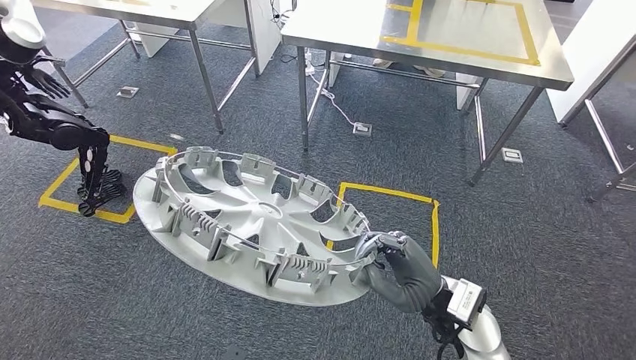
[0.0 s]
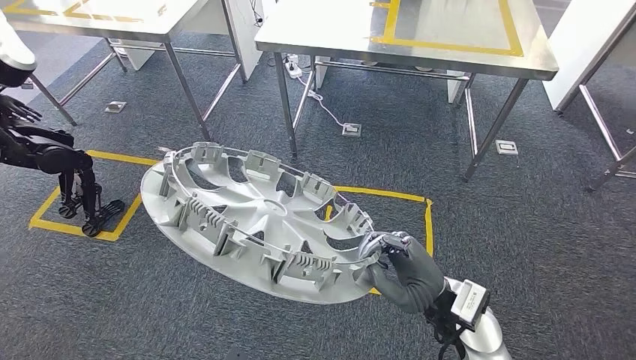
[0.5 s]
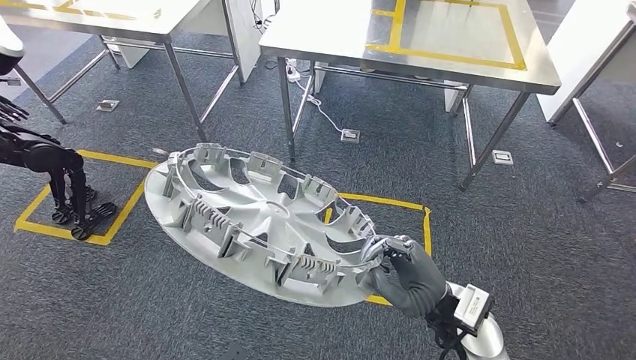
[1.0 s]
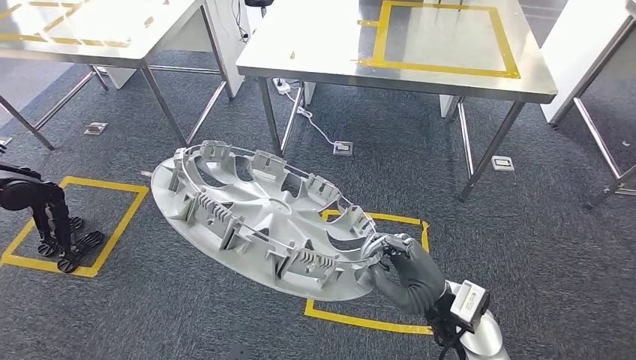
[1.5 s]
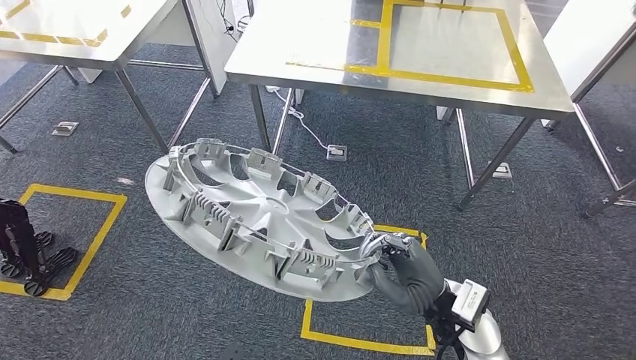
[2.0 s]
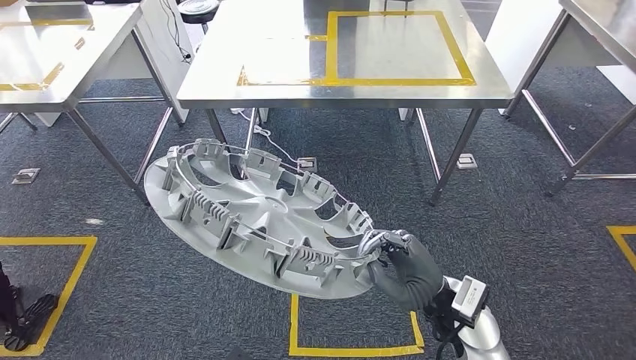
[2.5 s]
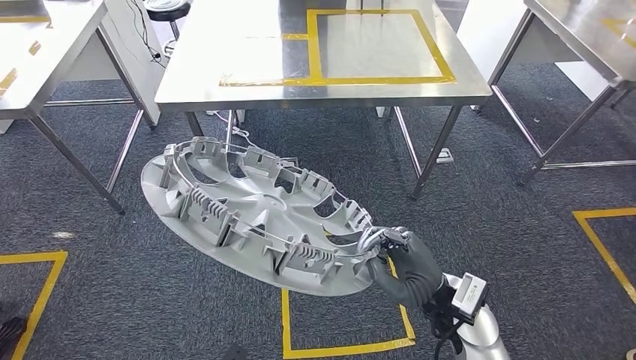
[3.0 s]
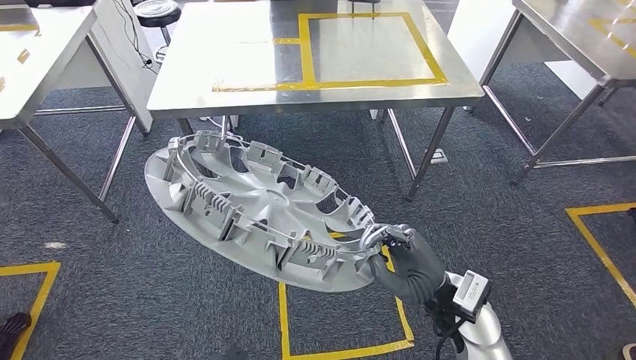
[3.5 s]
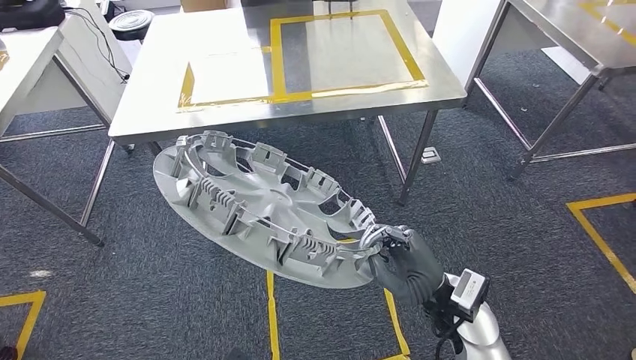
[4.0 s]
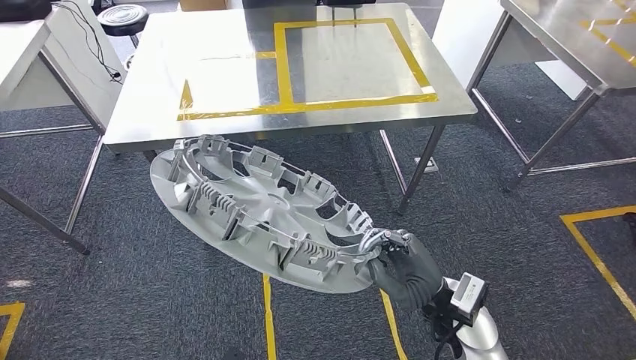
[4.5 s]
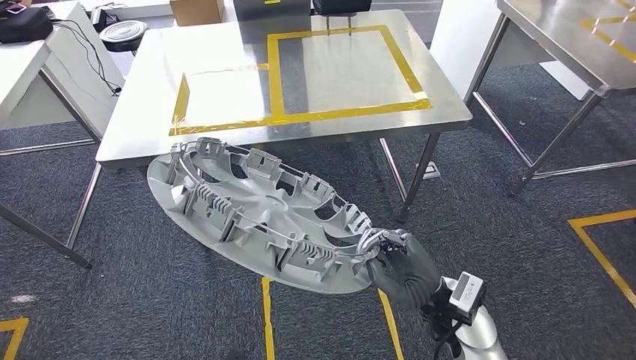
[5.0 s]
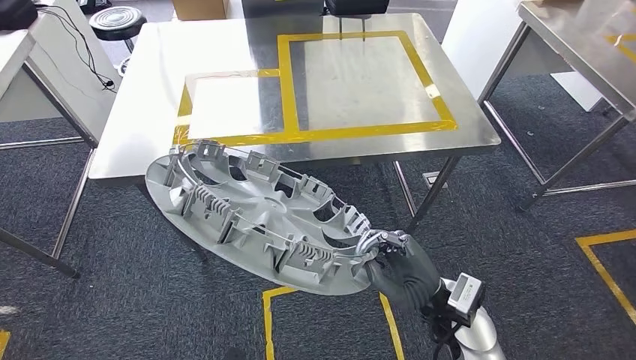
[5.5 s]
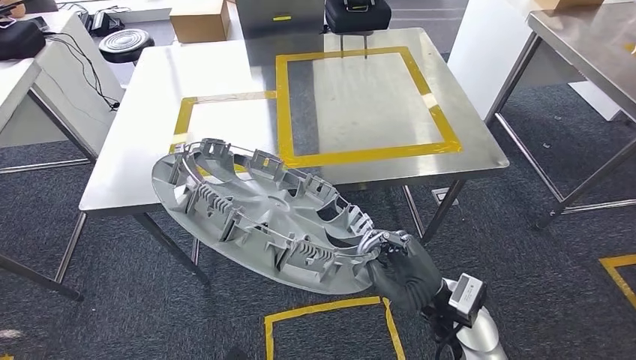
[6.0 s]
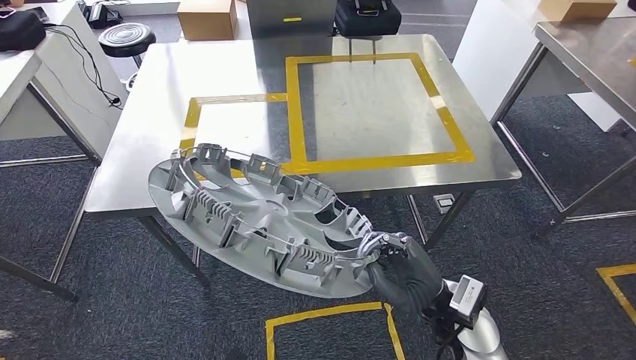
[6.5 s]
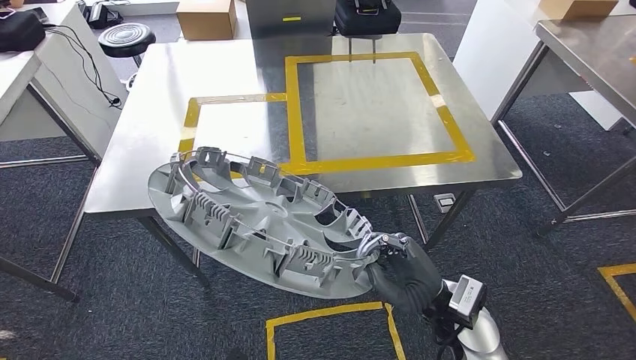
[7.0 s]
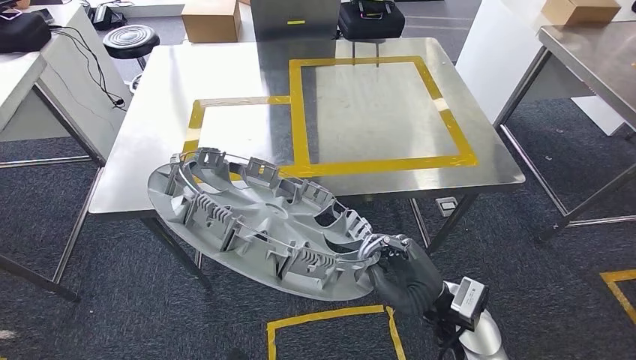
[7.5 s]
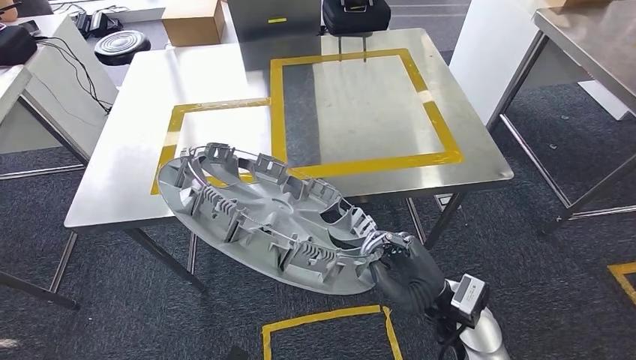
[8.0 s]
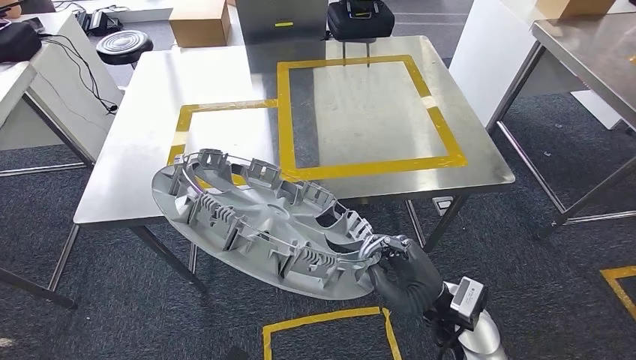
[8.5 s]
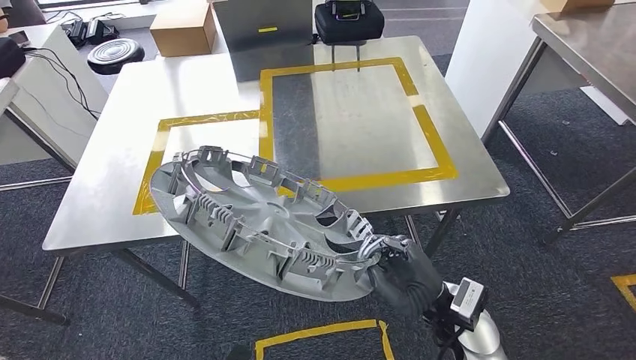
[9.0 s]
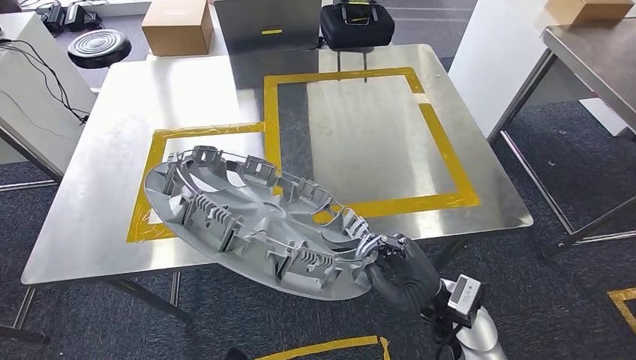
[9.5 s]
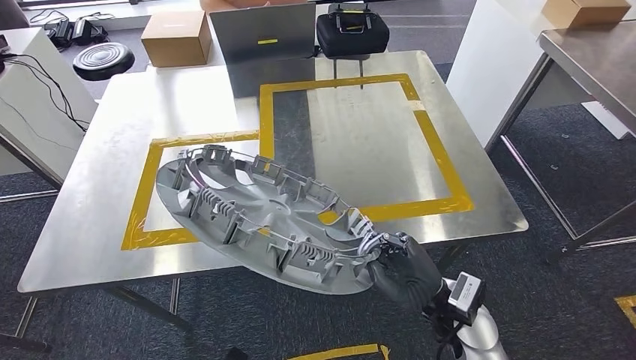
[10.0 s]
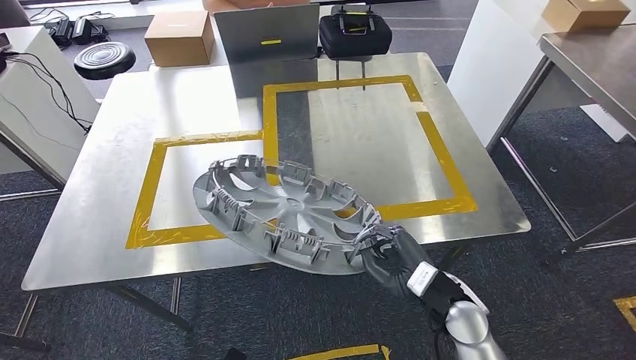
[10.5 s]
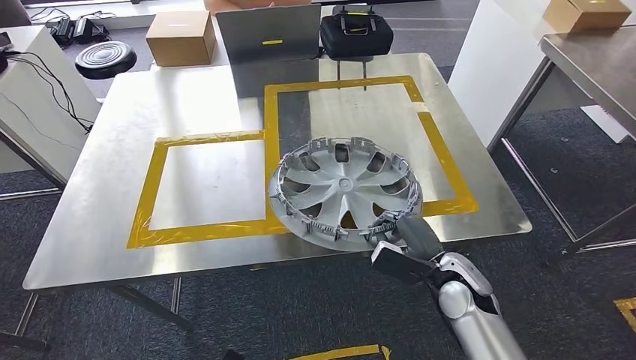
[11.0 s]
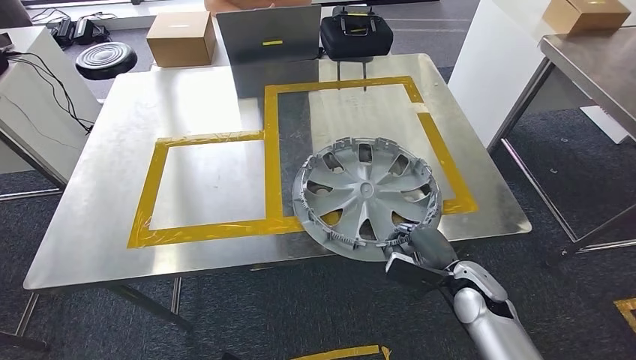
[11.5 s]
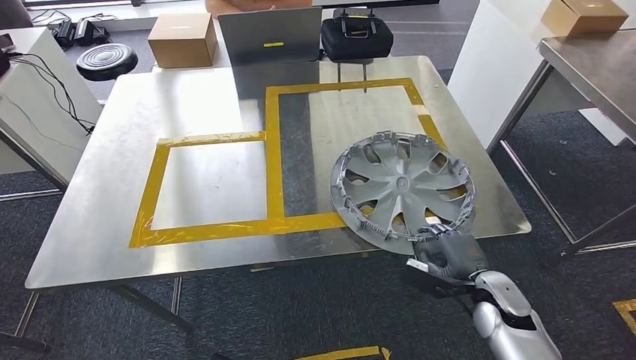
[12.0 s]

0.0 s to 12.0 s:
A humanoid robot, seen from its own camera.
Step, 0.0 to 9.5 s: Move the small parts to the workbench.

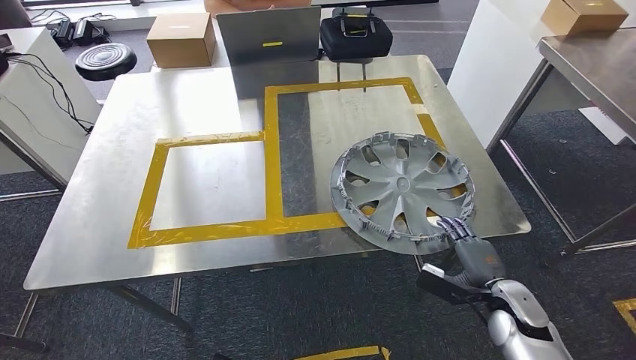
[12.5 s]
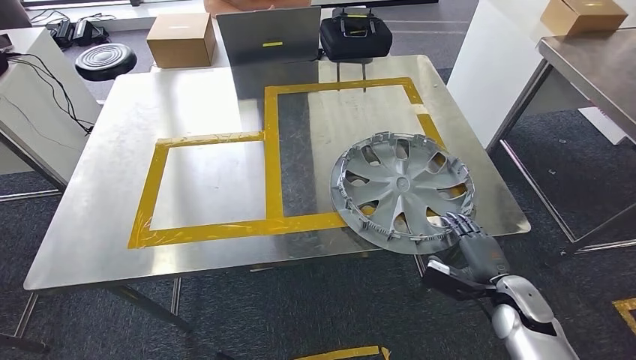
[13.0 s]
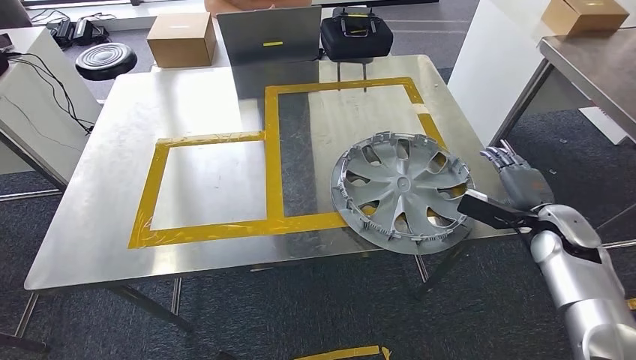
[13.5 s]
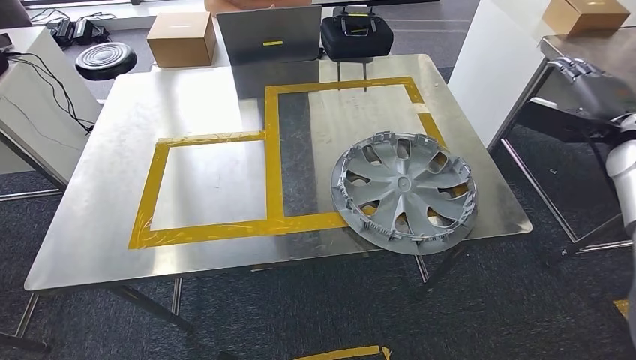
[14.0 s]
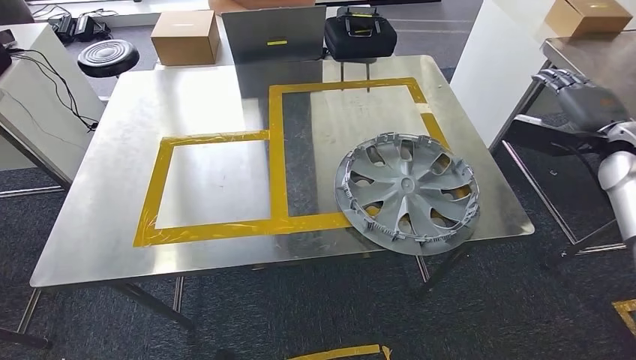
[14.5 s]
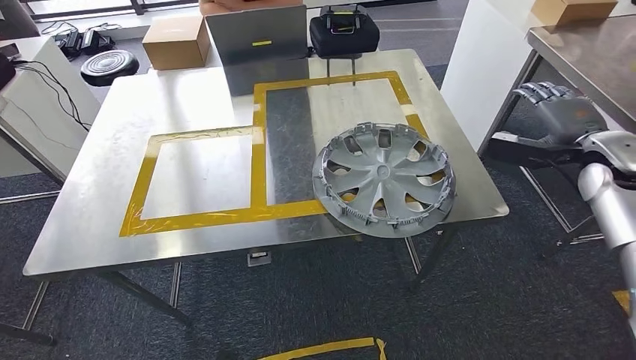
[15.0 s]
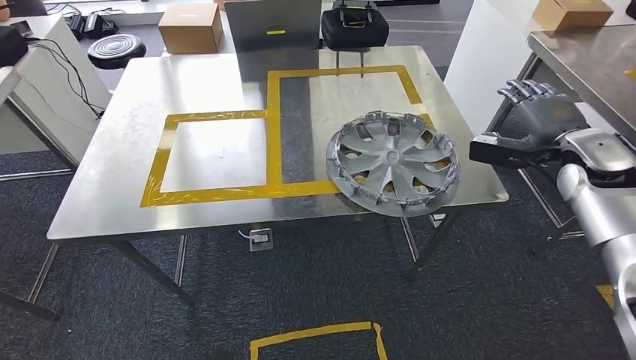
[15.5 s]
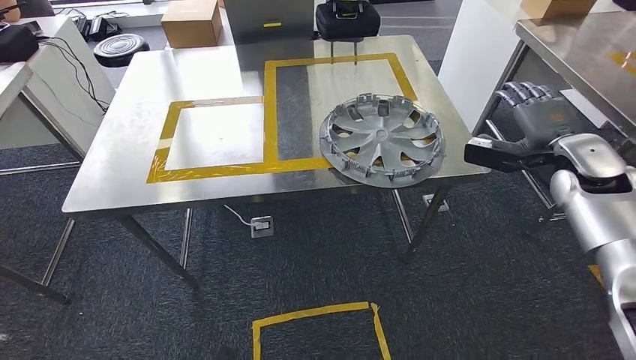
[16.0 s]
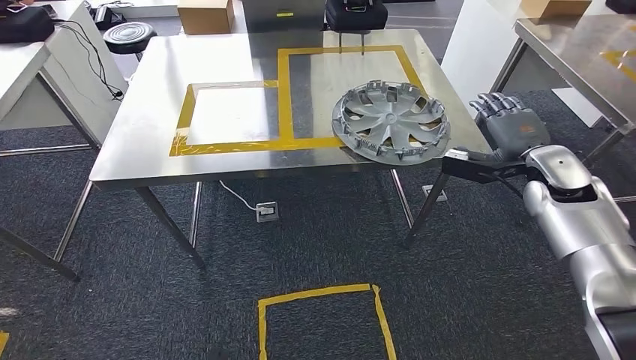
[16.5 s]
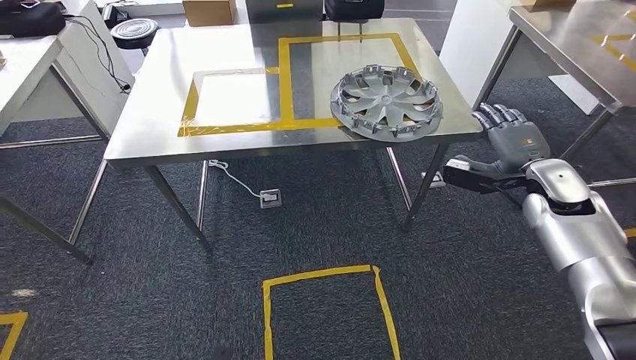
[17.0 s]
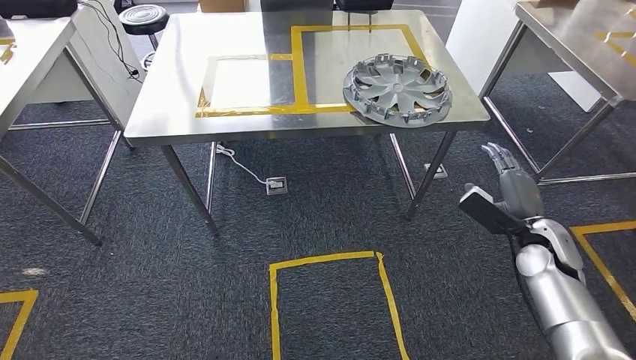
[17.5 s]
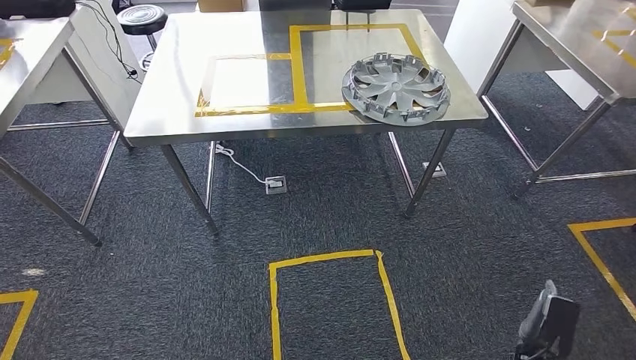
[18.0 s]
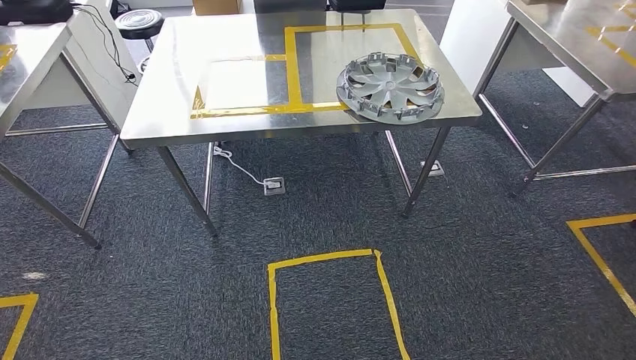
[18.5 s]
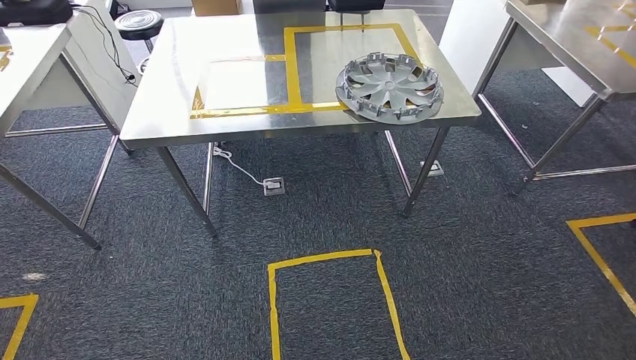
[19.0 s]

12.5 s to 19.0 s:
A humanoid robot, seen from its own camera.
Step, 13.0 to 19.0 s: Move to the initial position of the workbench.
12.5 to 14.5 s: The right hand shifts some 30 cm upward, forward and to the right.
